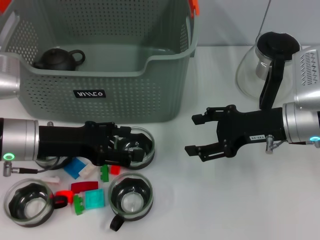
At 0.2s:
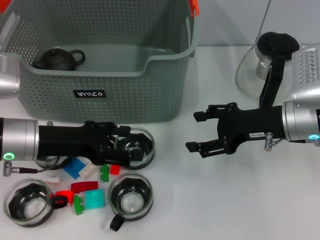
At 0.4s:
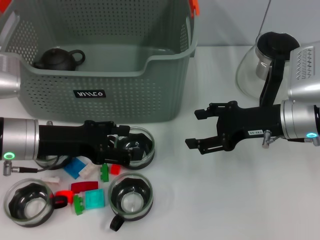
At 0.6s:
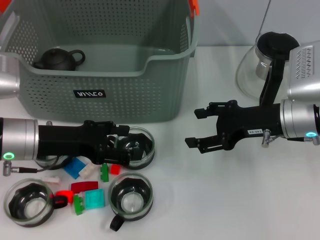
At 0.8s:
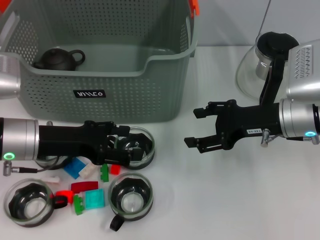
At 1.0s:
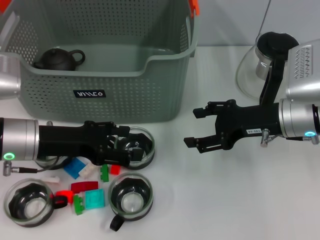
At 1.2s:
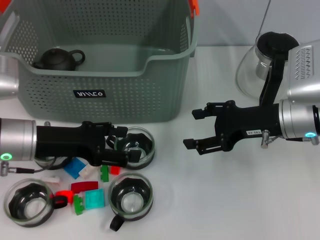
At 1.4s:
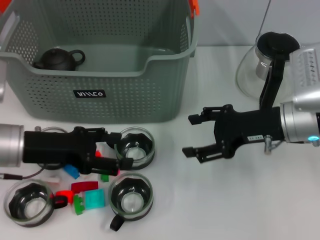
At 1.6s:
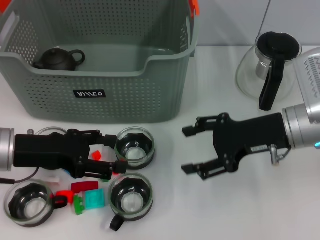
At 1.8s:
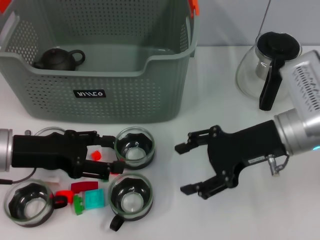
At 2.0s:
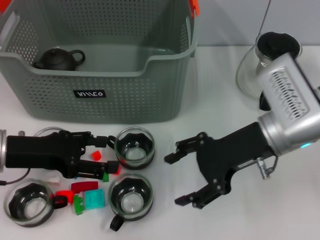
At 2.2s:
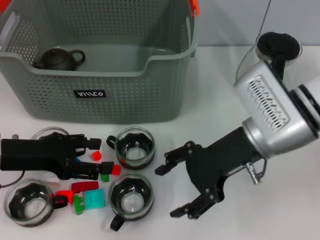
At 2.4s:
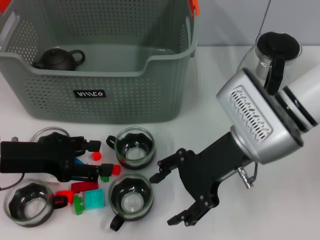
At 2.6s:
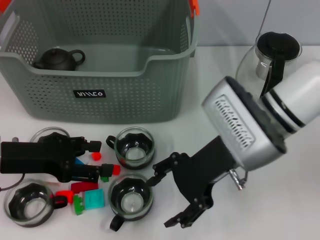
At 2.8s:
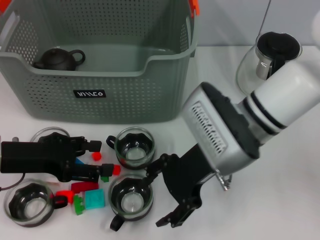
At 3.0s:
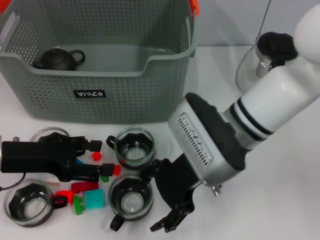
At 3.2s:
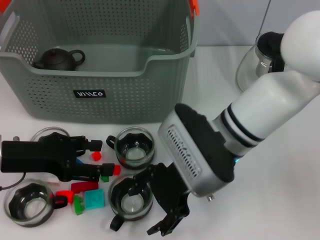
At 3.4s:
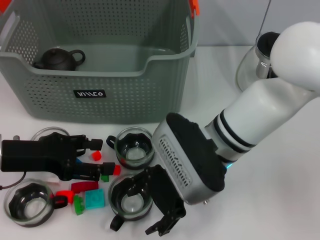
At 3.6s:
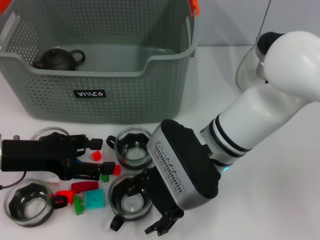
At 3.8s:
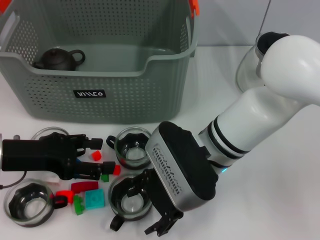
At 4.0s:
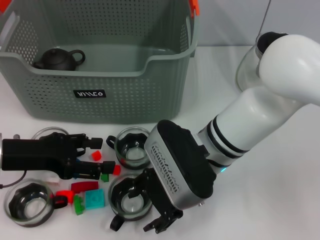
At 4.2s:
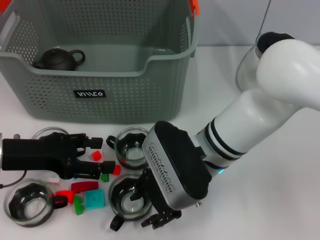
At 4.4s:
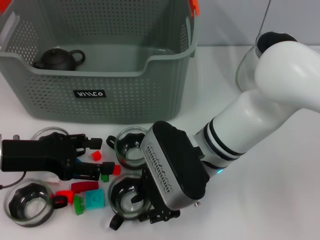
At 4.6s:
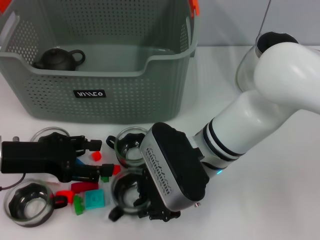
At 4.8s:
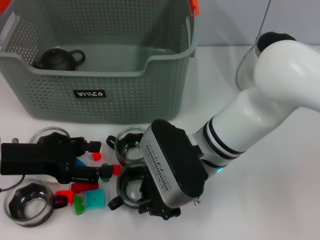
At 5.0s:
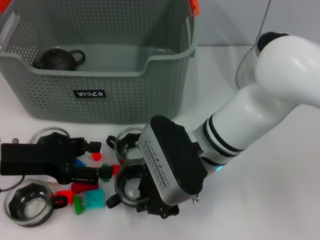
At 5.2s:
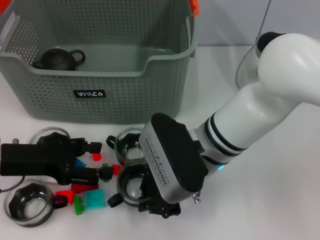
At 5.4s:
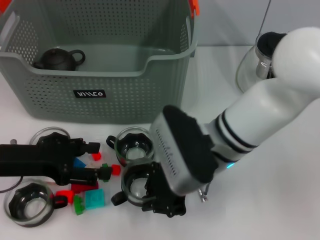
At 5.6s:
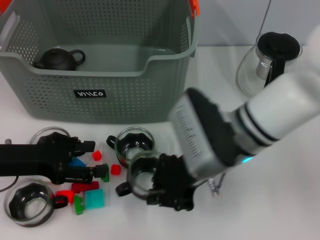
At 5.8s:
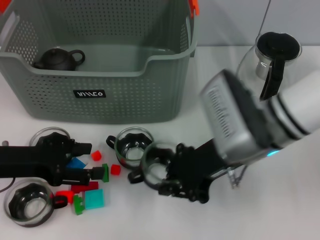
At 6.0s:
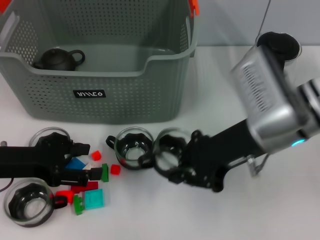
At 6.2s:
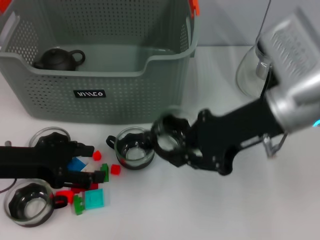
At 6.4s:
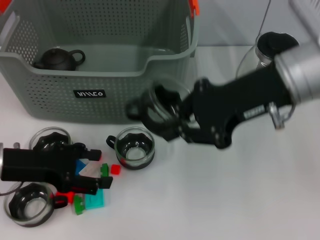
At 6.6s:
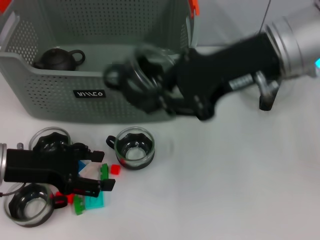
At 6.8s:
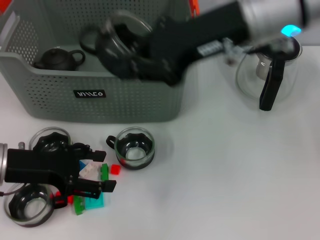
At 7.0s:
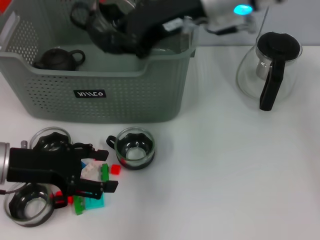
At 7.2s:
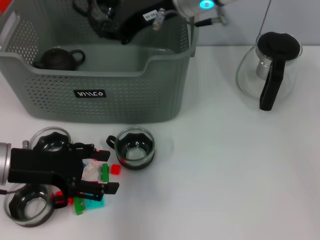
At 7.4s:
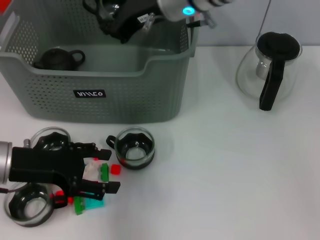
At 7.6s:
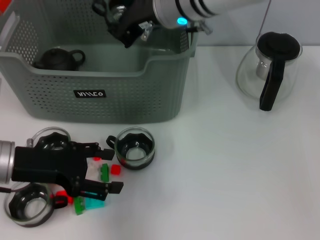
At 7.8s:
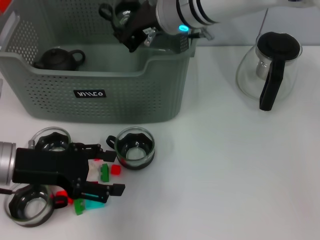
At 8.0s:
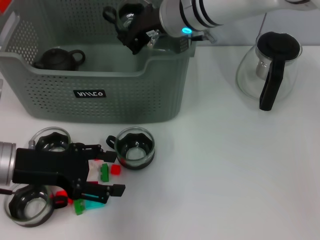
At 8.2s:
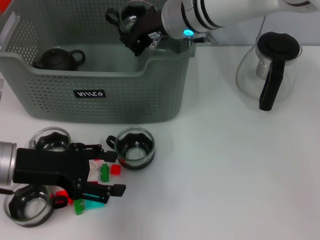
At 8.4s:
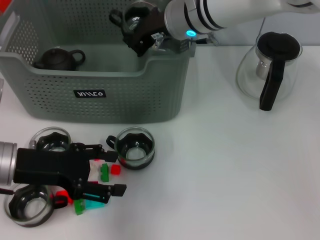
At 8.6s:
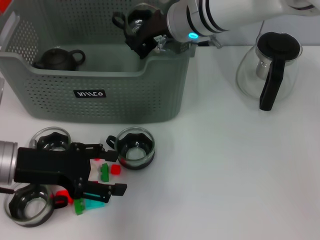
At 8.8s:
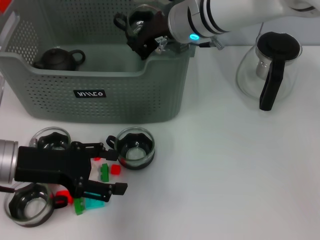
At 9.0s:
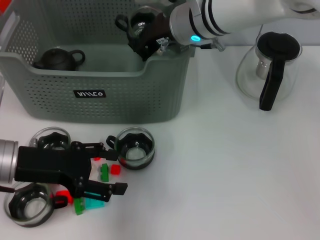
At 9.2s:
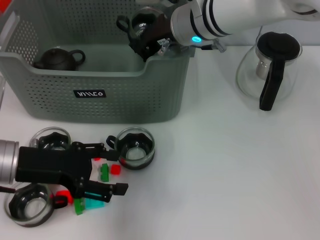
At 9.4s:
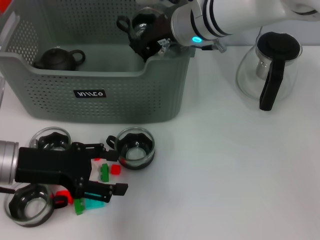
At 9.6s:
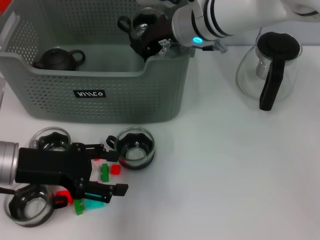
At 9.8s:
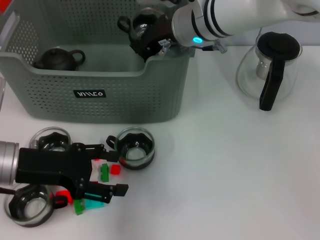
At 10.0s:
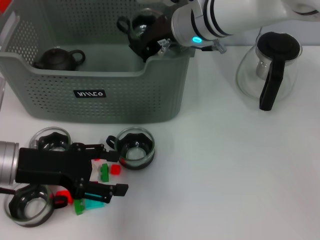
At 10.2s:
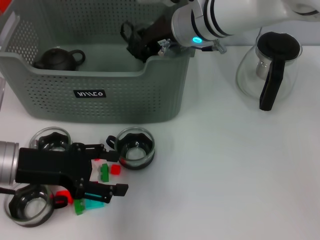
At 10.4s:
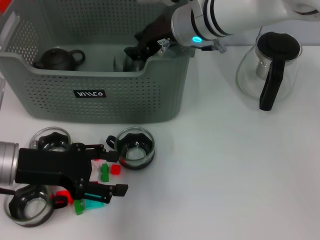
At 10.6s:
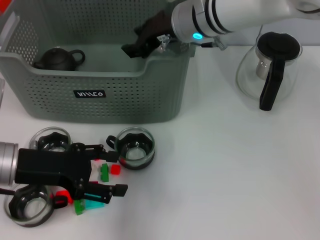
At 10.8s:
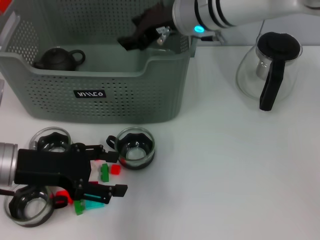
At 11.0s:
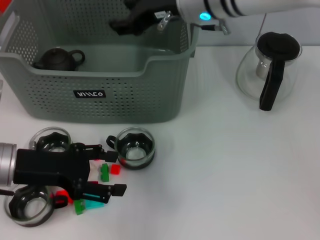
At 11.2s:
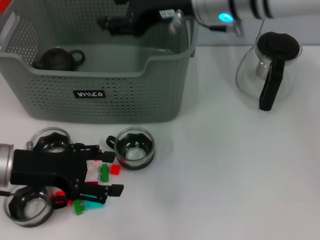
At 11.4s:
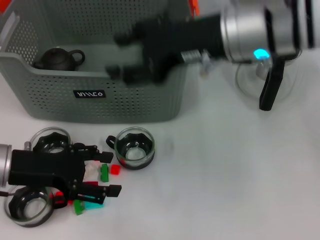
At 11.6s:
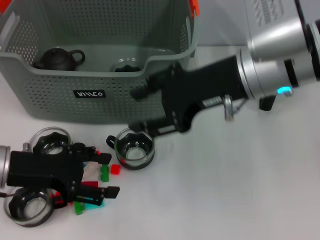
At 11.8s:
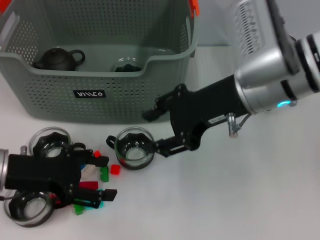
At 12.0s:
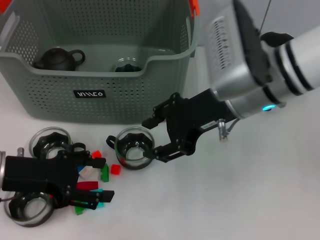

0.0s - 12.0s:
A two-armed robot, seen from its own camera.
Task of the whole recording: pick up the teacup on the table and place it into the storage bin, pick up the block on the table and place it into the storage bin.
Step, 0.0s - 4.8s: Grasp the cup with right gripper.
Step, 5.0s - 10.8s: Place the cup in the storage box with right gripper.
0.0s - 1.6s: The grippers move only a little.
1.6s - 3.0s: The right gripper heads to the left, covering some 10 cm.
3.0s - 4.4s: The grippers make only small movements.
4.4s - 6.0s: The right gripper shifts some 10 cm to the right and upward, and closes up.
6.0s - 7.6s: The right gripper shifts some 20 cm forward, to the left and upward.
7.6s - 9.0s: There are only small adjustments of the grippers.
9.0s - 10.4s: Both grippers stay put.
10.4s - 12.0s: The right gripper is displaced backward and to the right by approximately 10 cm, and opens its fingers.

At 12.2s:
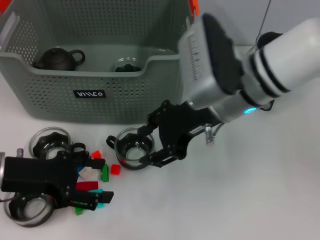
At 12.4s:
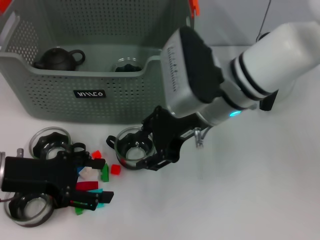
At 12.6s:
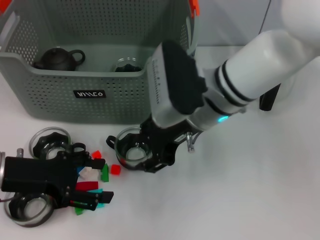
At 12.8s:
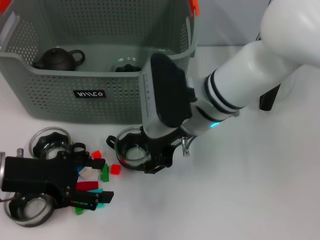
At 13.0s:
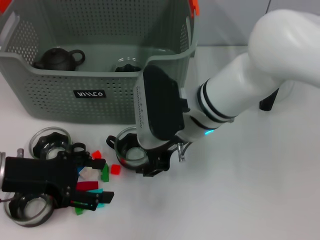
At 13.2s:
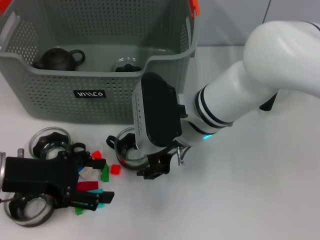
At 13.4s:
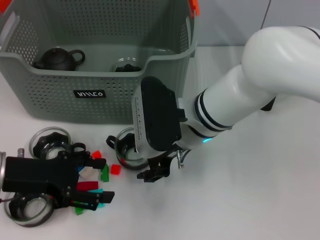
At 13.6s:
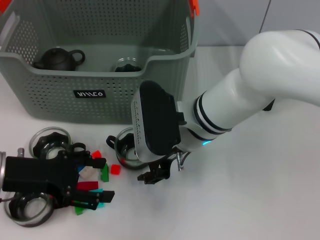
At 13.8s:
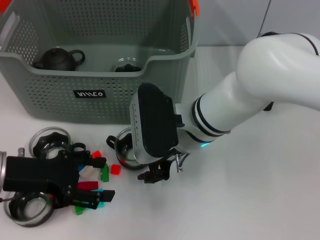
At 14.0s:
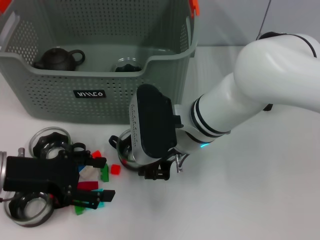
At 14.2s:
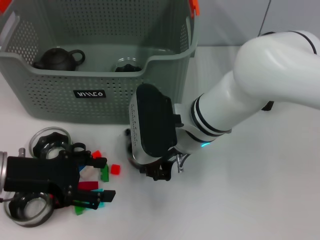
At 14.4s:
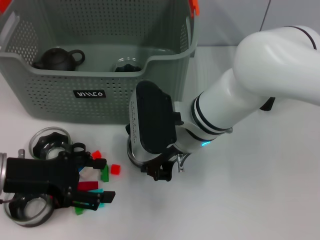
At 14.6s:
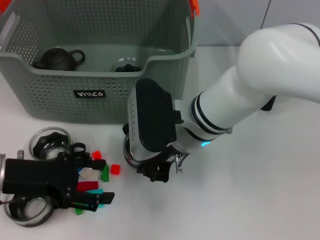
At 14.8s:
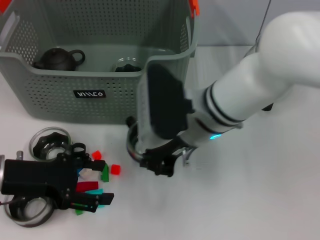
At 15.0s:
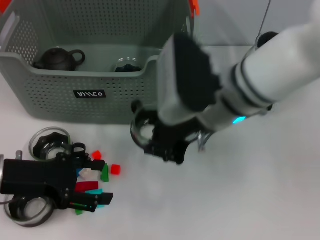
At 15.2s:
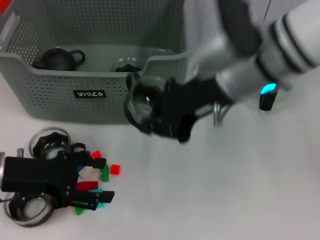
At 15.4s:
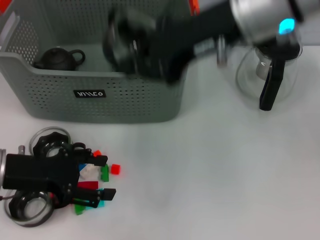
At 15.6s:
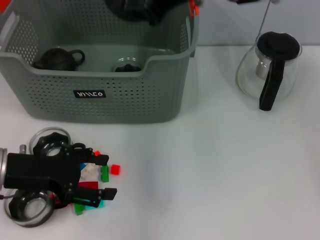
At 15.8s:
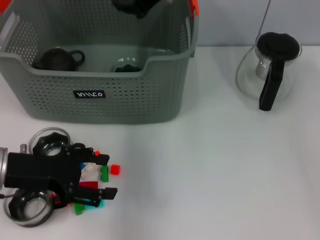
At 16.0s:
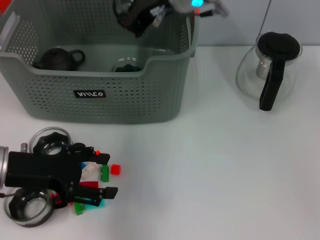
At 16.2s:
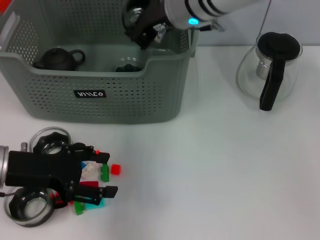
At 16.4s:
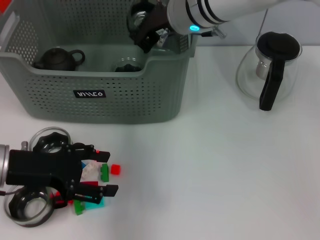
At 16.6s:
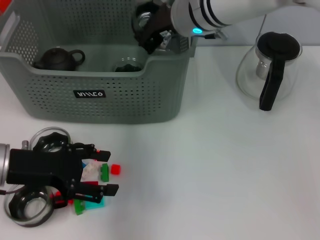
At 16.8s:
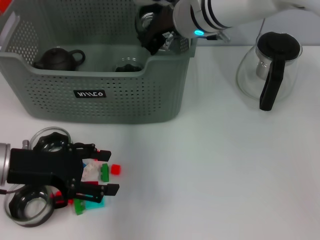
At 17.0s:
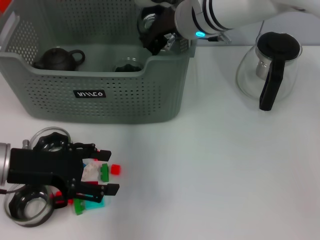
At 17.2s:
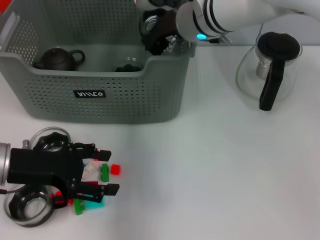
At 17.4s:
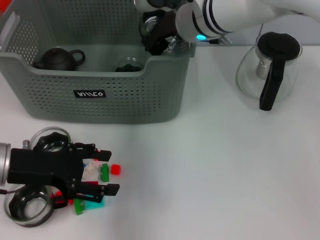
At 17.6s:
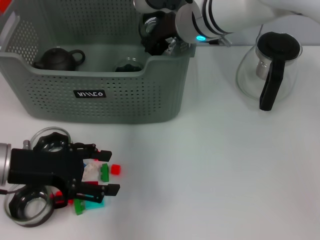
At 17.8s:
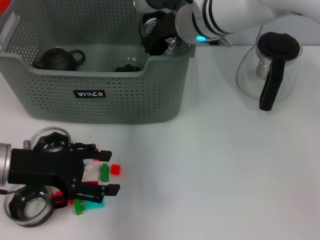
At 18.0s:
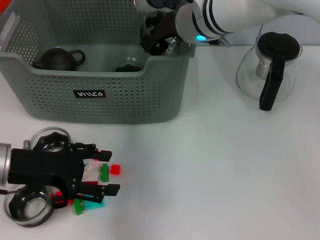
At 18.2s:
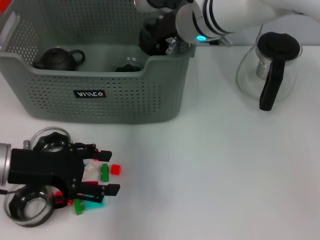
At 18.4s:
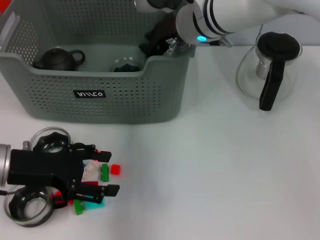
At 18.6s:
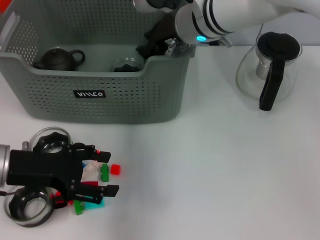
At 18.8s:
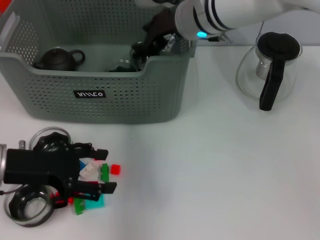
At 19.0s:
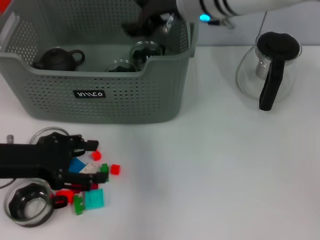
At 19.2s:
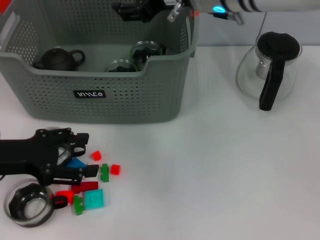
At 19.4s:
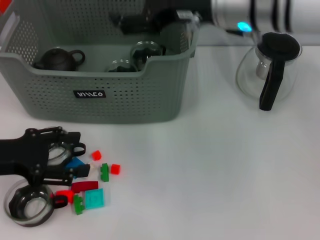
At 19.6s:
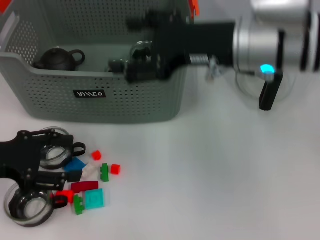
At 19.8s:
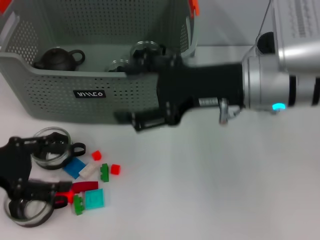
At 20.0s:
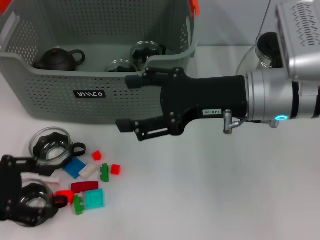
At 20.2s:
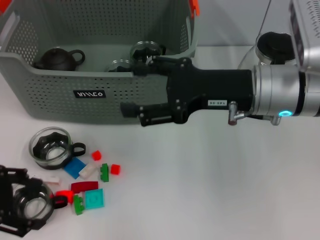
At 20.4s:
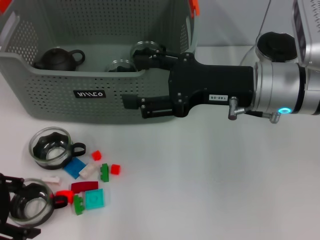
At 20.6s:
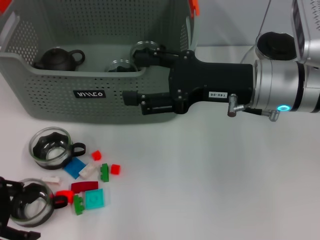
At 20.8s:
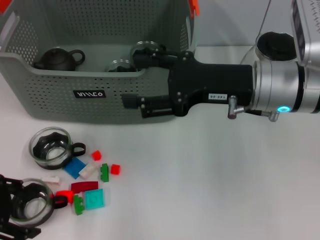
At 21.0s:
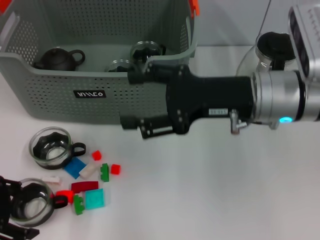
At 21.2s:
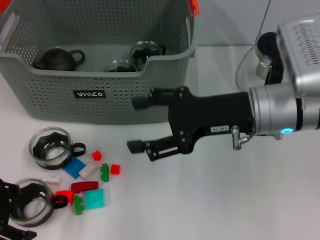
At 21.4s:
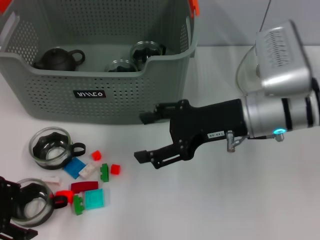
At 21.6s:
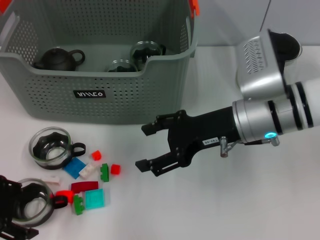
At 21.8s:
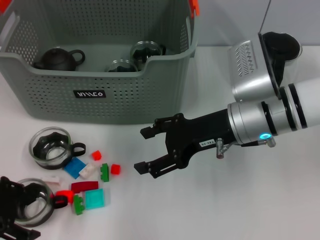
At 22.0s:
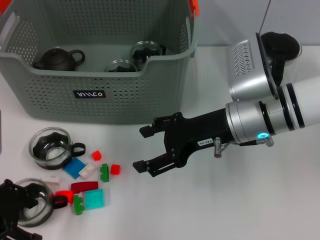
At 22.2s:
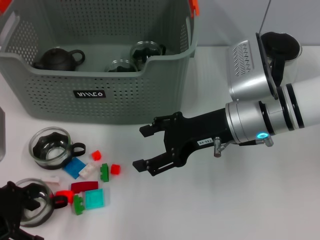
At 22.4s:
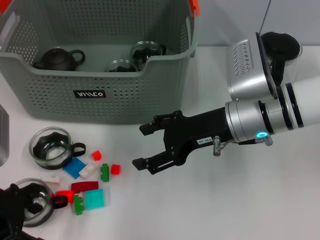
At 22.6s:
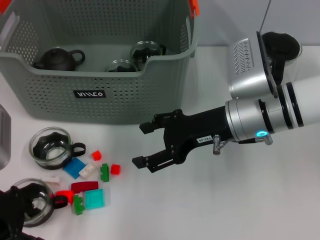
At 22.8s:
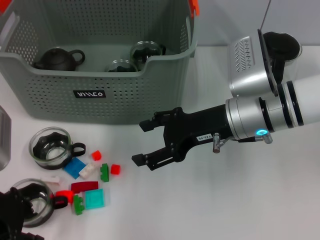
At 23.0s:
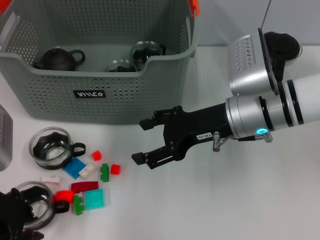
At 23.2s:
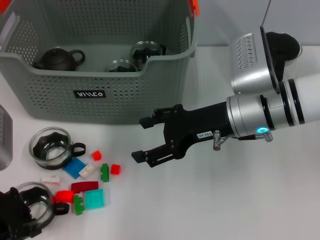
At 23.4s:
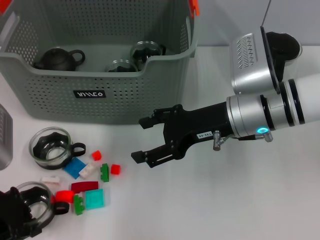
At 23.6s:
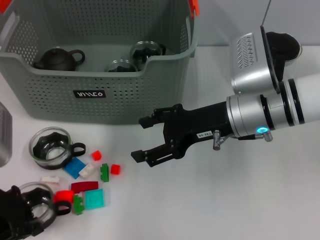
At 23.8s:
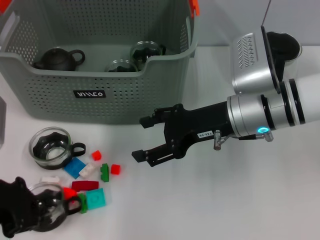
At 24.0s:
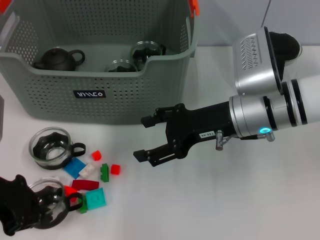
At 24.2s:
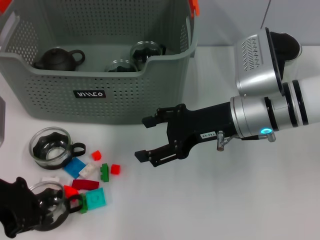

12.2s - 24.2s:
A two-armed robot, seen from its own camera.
Task of the whole recording: pick up the teacup on the table and place it into the storage bin, pick up the block on the table and place it into the storage bin.
Step, 12.2s - 14.2s: Grasp the cup with right gripper.
Step, 14.4s - 19.0s: Place the cup in the storage box with right gripper.
Step, 19.4s - 23.0s: Grasp the cup with left gripper.
12.2s - 13.8s: The right gripper heads downward and to the left, covering about 10 cm.
13.8s - 15.2s: The right gripper heads upward and to the right, covering some 15 cm, and closes its fingers.
15.2s - 16.6s: The right gripper goes about 15 cm forward.
16.6s - 18.2s: Both grippers stay put.
18.2s - 19.8s: The left gripper moves to the left, roughly 5 cm. Meanwhile the right gripper heads backward and to the right, covering roughly 15 cm, and opens up.
21.2s - 22.6s: The grippers move only a little.
22.6s - 24.2s: The left gripper closes up.
